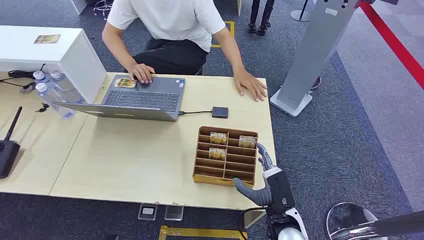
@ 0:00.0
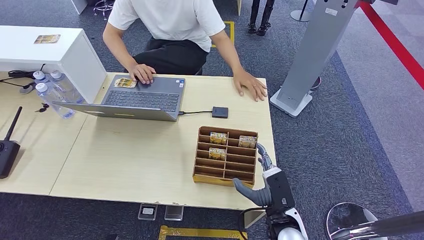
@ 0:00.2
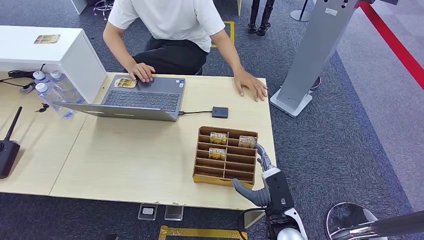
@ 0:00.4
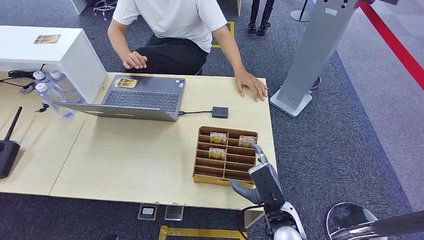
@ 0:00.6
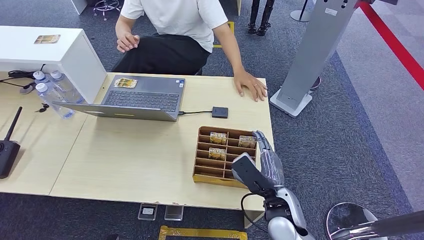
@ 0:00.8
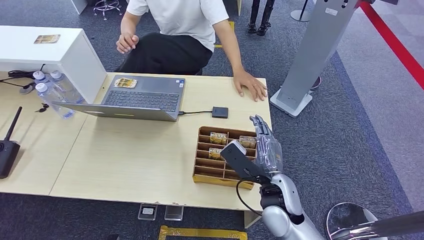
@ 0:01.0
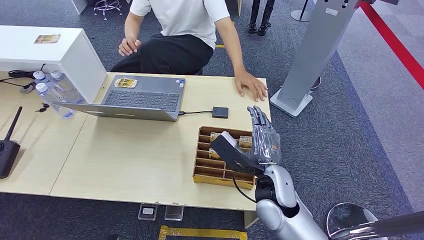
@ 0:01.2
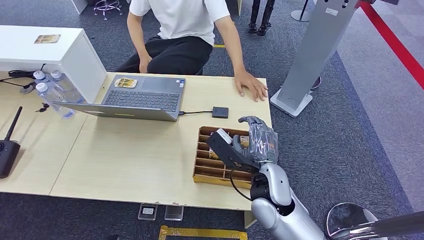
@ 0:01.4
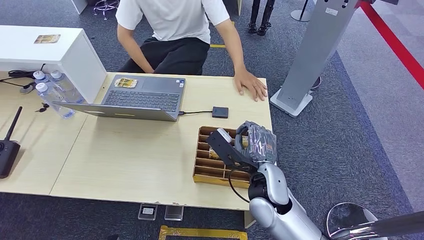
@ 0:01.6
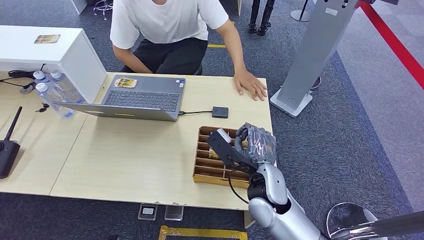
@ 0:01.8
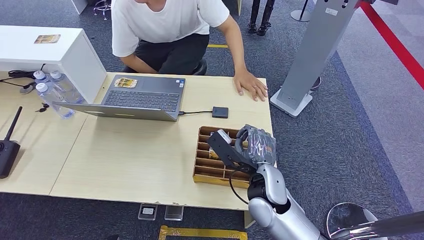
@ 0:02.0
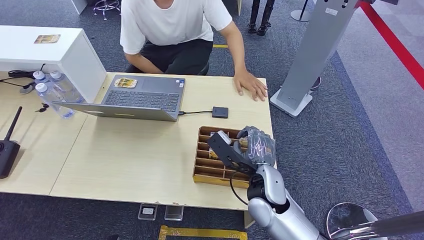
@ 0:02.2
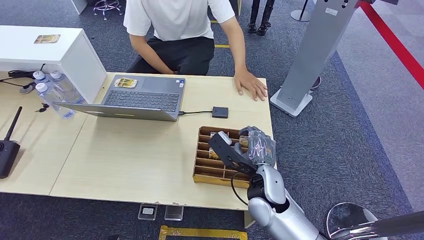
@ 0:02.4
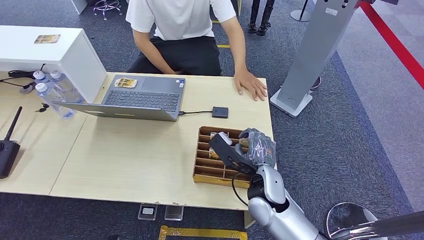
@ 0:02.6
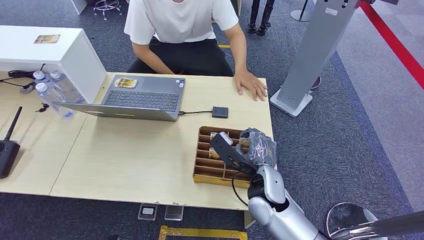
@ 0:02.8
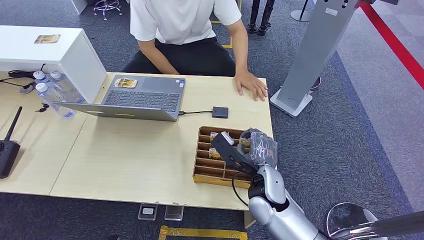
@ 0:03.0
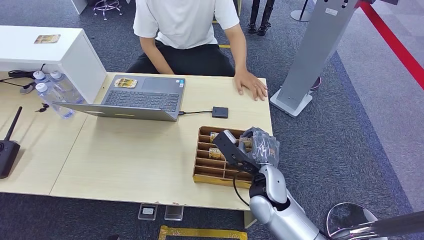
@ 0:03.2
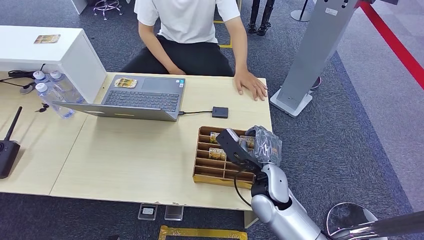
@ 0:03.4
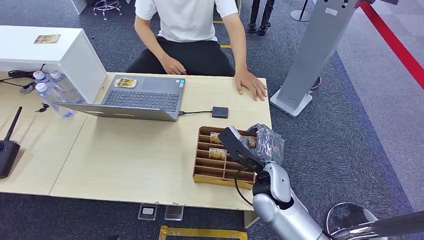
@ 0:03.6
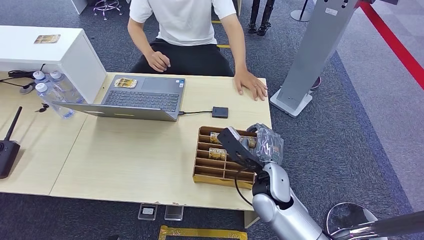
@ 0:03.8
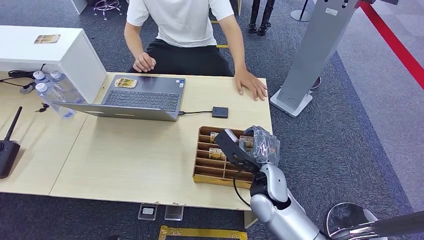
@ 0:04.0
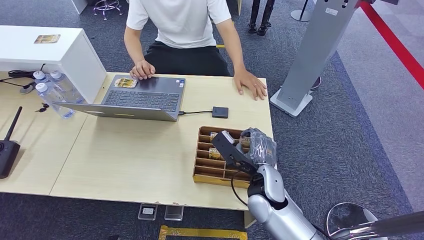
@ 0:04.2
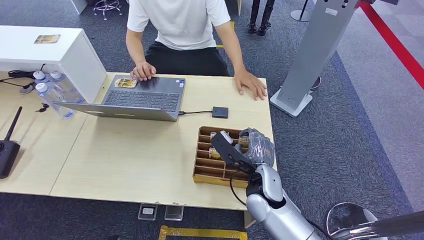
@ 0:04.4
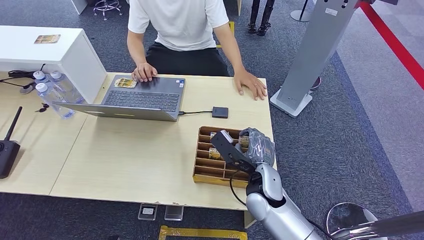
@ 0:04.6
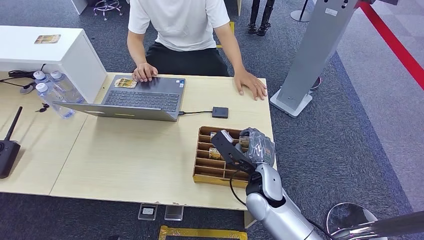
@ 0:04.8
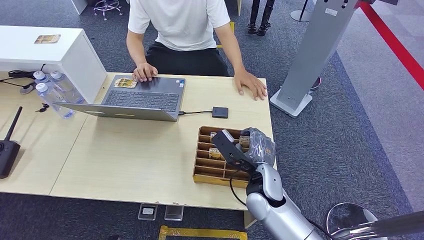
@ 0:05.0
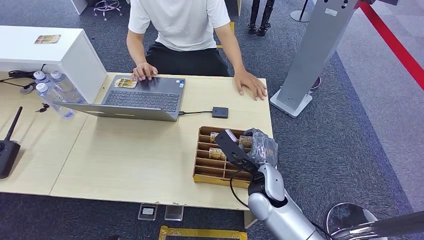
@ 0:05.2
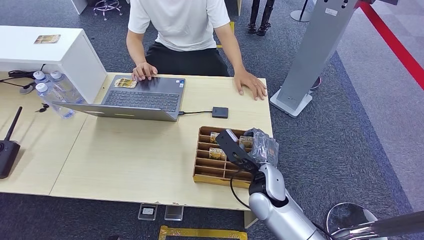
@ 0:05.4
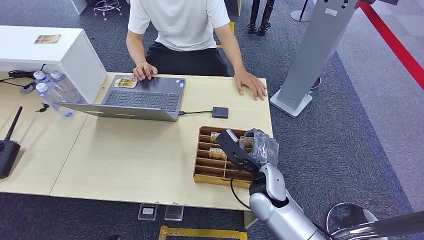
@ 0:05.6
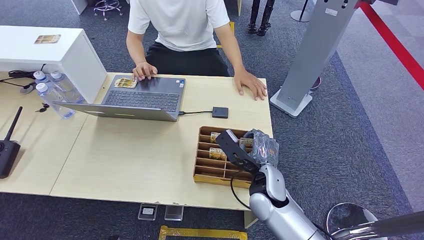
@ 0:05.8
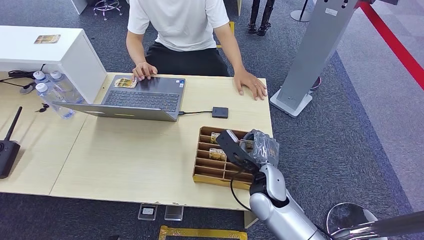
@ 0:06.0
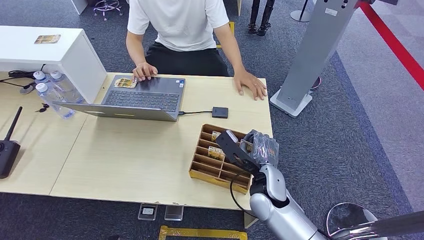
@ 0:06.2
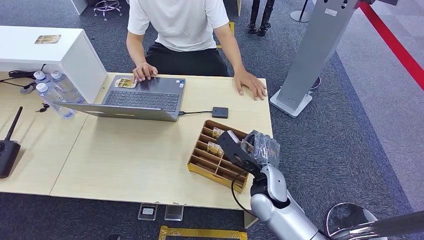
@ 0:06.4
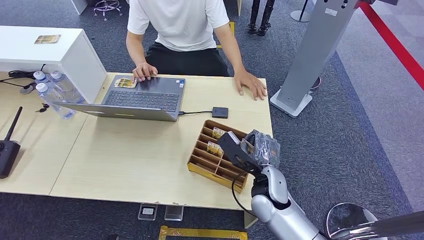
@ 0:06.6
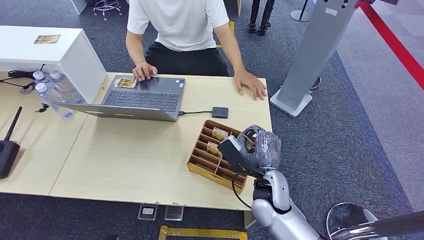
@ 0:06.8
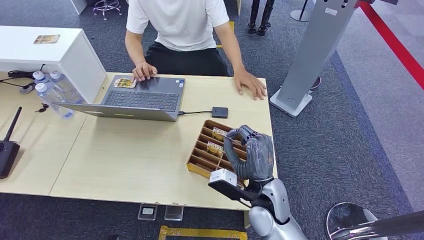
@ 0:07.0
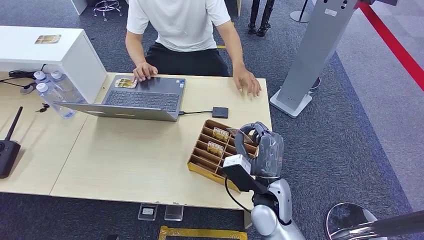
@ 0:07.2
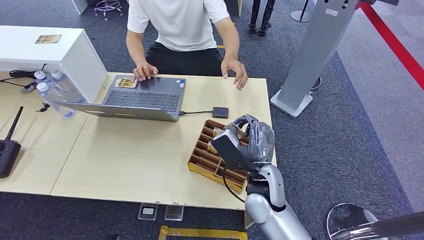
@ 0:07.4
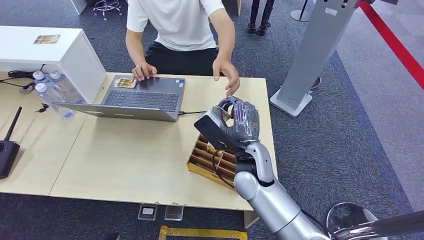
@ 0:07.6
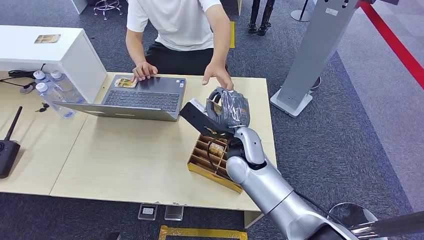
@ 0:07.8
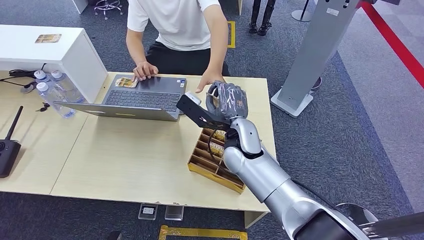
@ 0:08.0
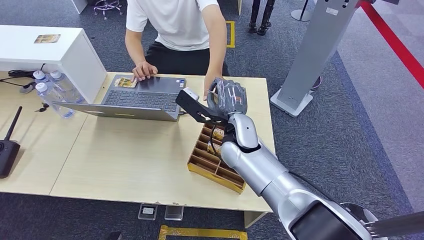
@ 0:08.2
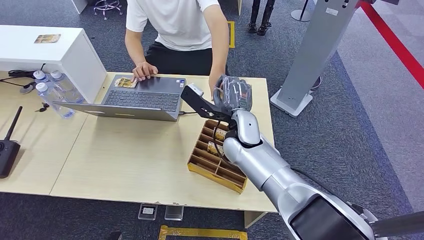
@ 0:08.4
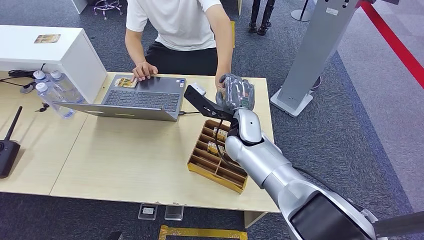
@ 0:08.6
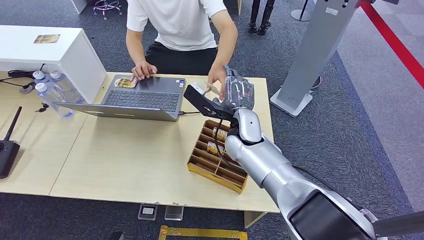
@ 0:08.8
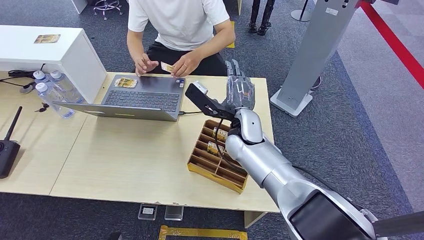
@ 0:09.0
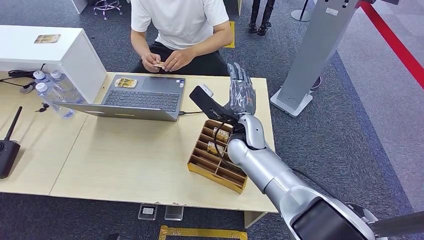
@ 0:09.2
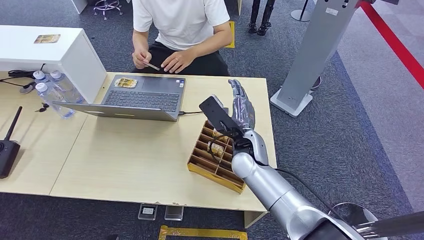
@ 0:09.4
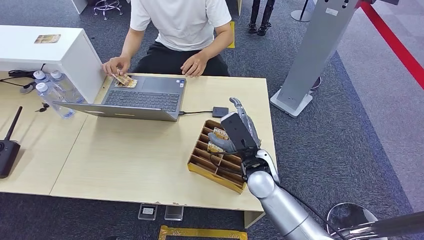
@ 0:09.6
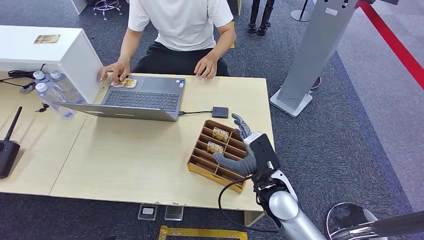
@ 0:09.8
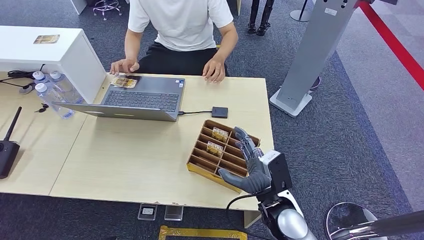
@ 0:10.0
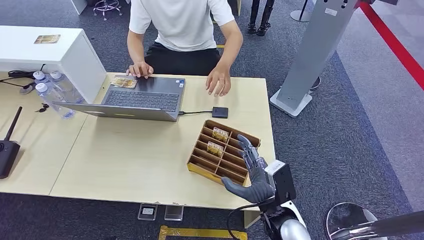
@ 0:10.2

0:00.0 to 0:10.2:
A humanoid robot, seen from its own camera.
Step, 0:00.0 to 0:07.4: Pick up the room card from the card holder.
Step, 0:07.6 to 0:10.0: Hand the room card to the target.
0:01.4 to 0:03.0: The hands move only a little.
0:03.0 to 0:05.8: Both hands stay put.
0:07.2 to 0:08.8: The right hand moves forward, to the left and upward, some 15 cm.
0:08.8 to 0:10.2: The right hand shifts roughly 25 cm backward, to the right and downward.
